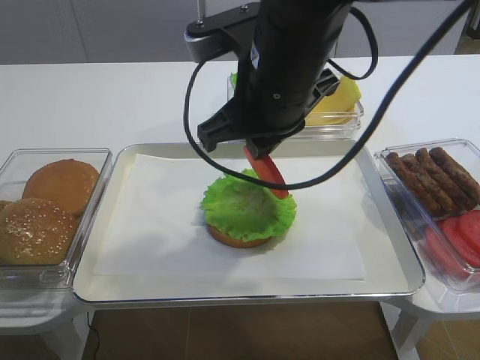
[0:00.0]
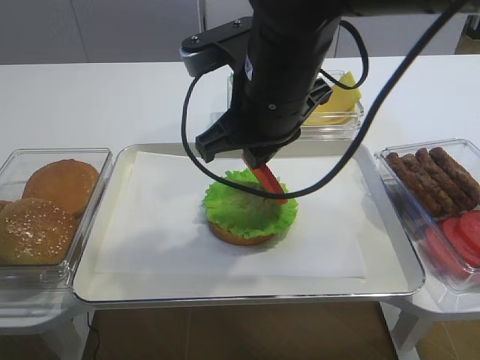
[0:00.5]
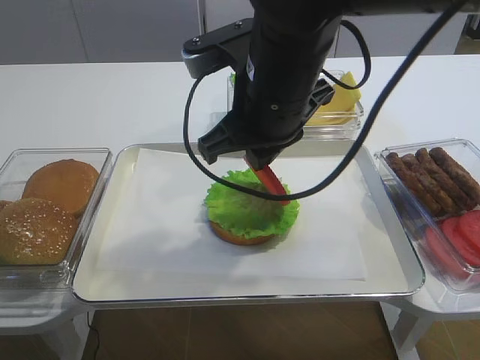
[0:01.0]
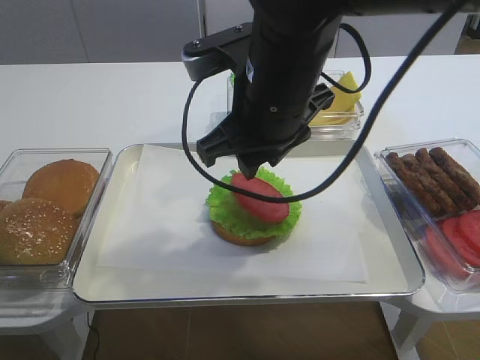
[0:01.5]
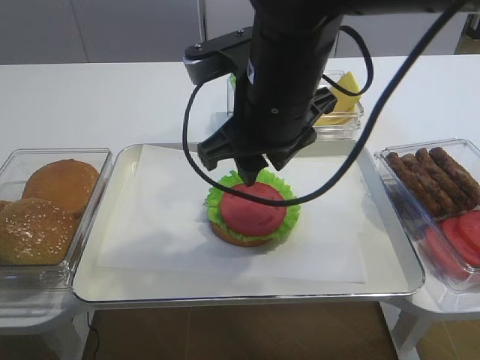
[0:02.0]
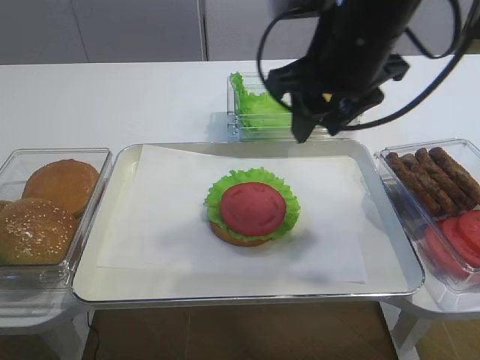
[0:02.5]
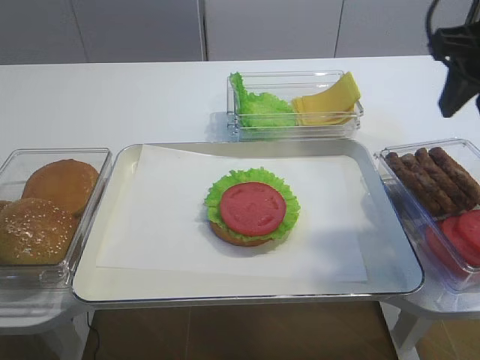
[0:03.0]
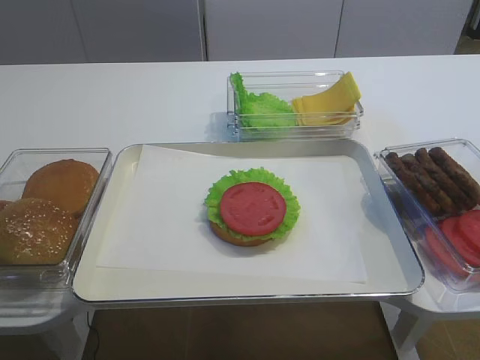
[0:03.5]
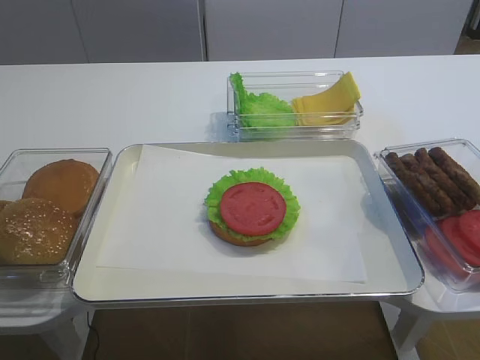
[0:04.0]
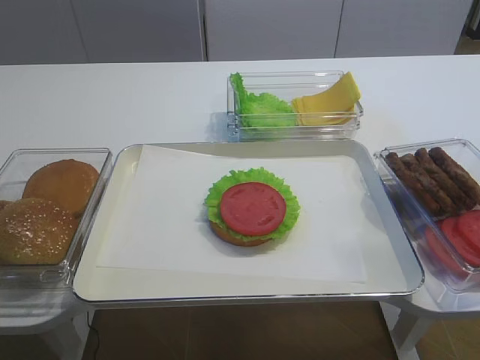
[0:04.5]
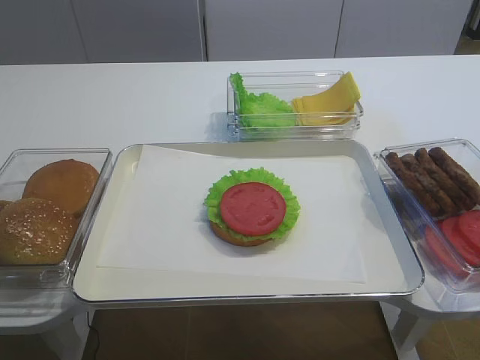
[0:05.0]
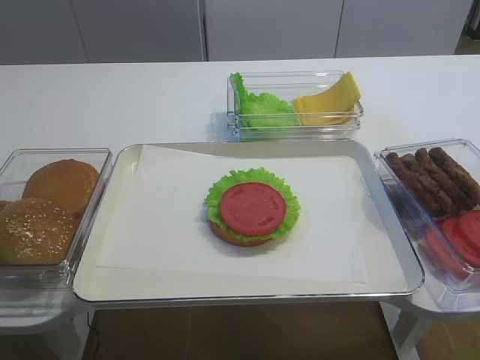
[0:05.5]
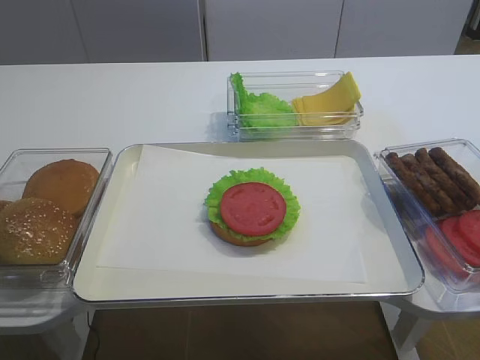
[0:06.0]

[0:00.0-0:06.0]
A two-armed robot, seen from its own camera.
Step, 0:00.0 to 0:02.0: Place the tomato slice on the lettuce leaf with the right gripper.
0:00.0 to 0:02.0: The right gripper opens.
0:02.0 to 0:04.0: The right gripper travels to the right, backward and upward by approximately 30 cm.

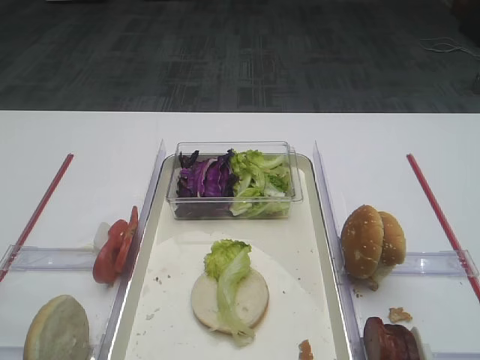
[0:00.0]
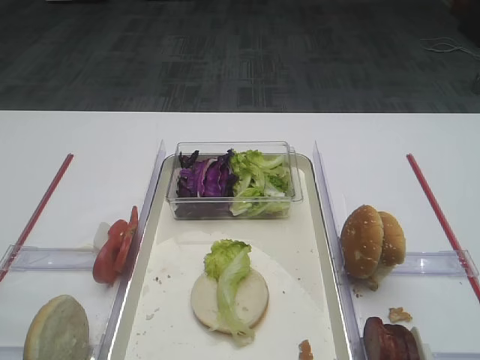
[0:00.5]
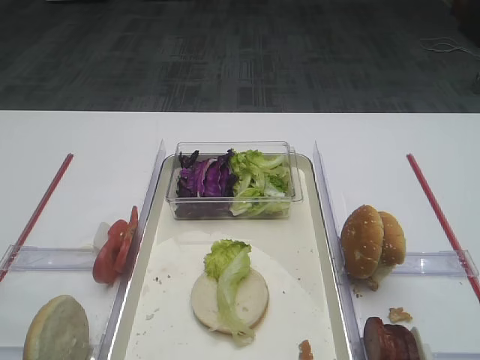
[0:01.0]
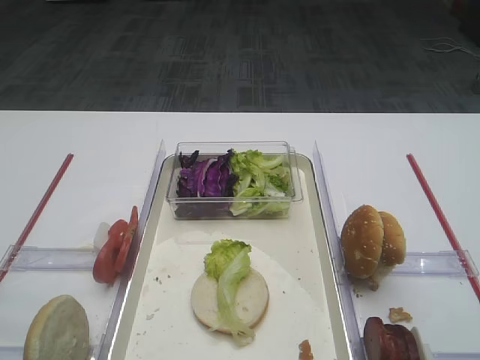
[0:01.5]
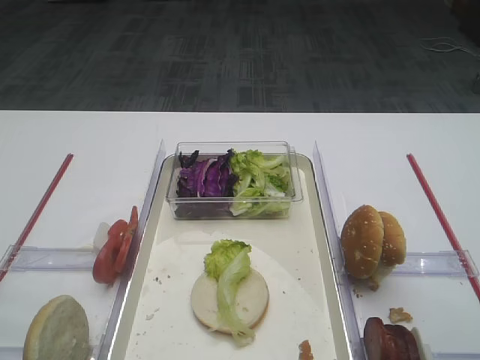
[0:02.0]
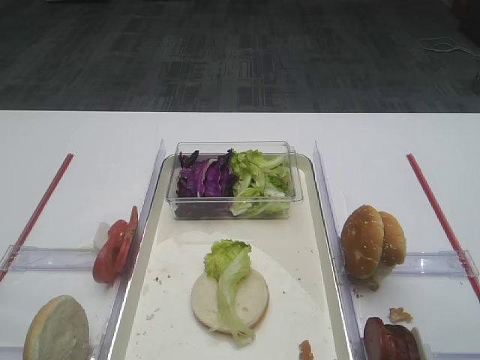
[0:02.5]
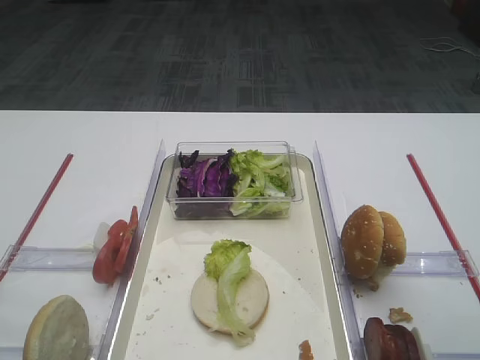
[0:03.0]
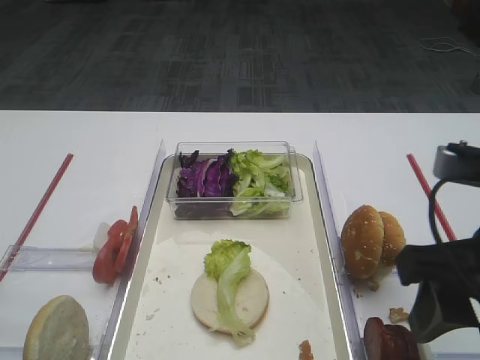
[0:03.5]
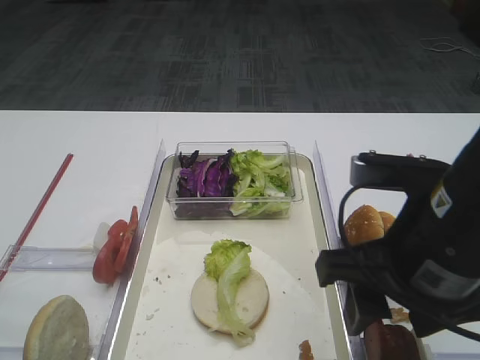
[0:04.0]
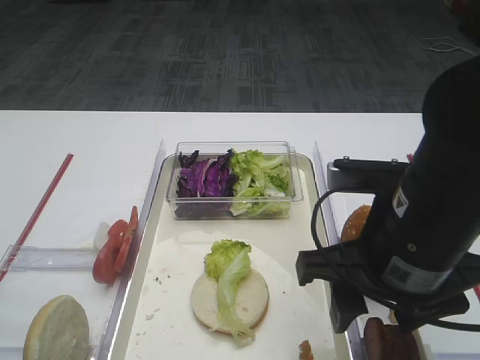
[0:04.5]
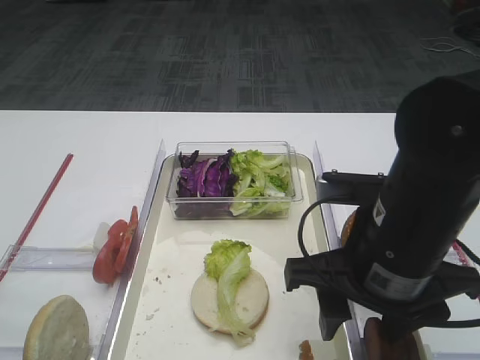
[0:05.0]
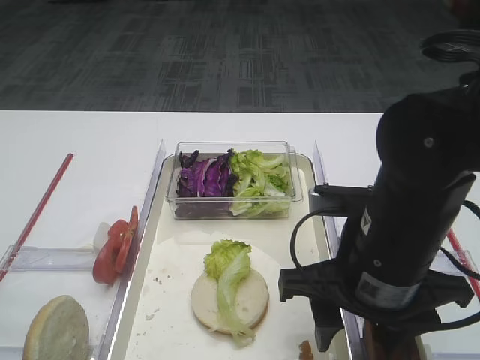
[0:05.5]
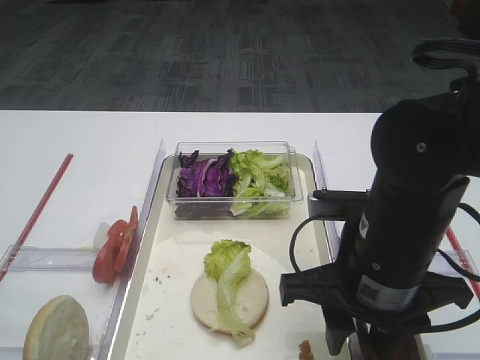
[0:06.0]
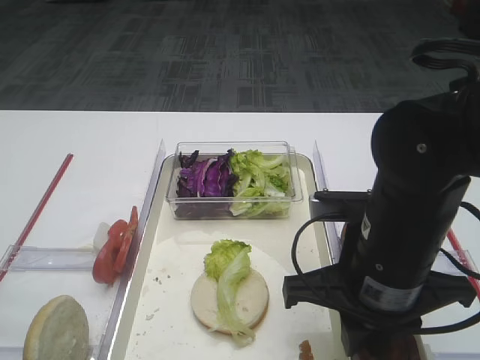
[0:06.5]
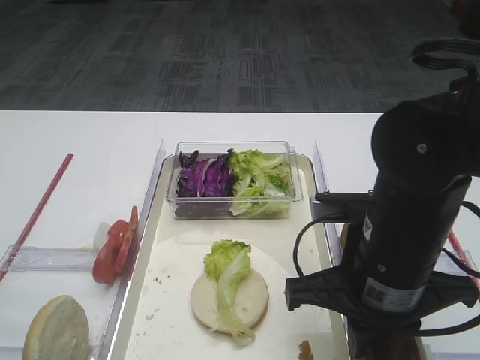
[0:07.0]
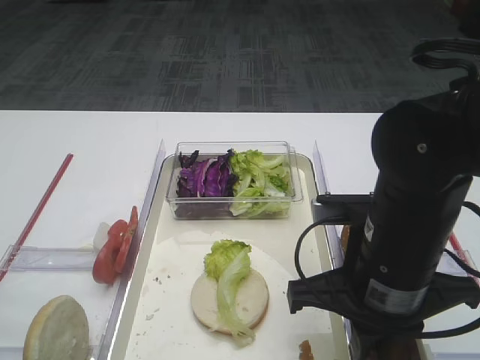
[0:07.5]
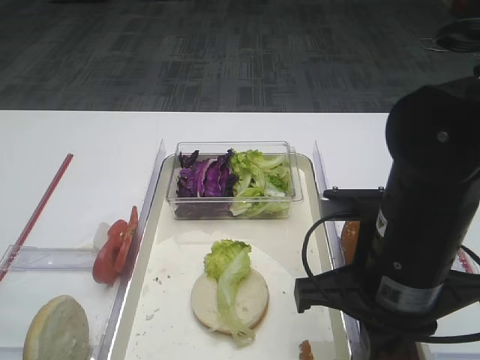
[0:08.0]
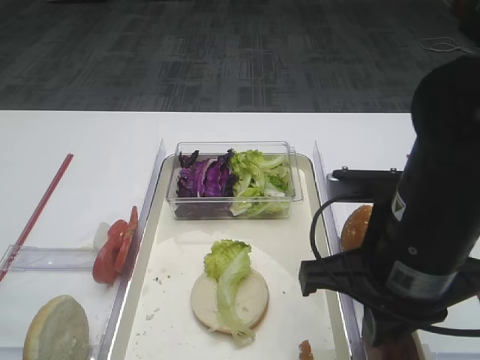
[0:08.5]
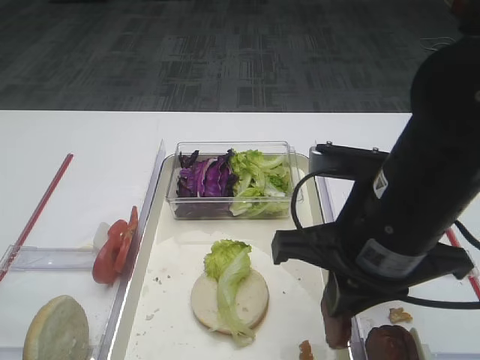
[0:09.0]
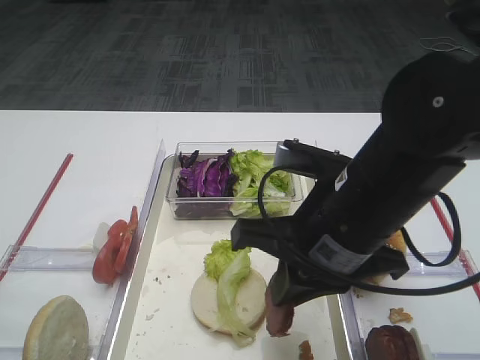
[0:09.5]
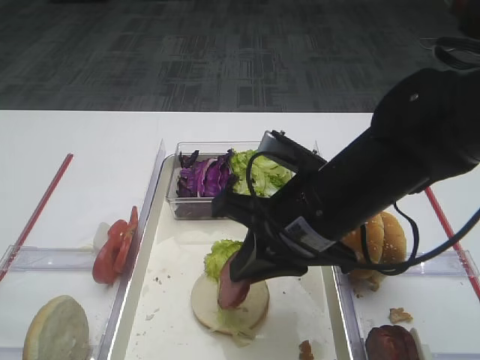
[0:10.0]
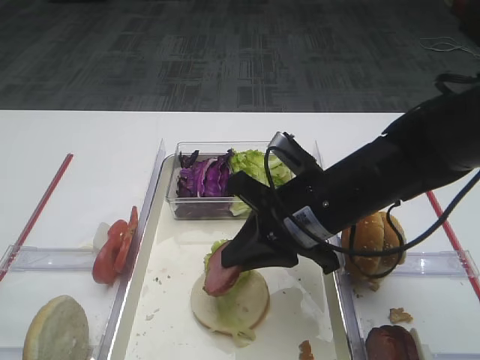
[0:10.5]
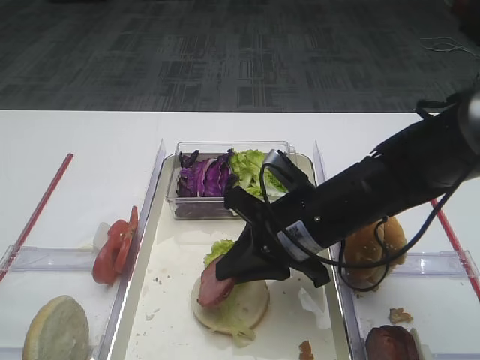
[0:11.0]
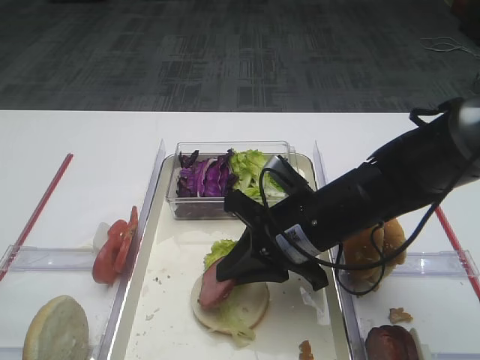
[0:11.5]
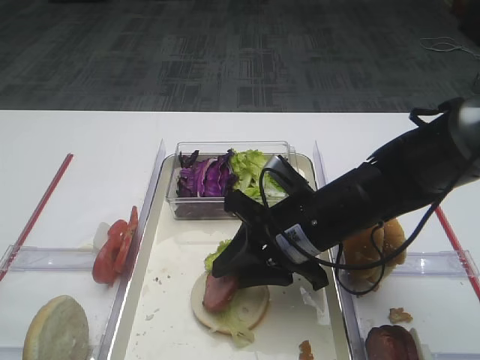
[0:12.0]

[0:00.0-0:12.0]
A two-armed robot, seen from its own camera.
Step, 0:00.0 to 0:08.5: Pick up the cutlet with the right gripper.
0:02.0 to 0:04.0: The right gripper shifts some 15 cm to the left, downward and forward.
0:04.0 to 0:06.0: The right gripper changes place by about 5 cm.
0:06.0 to 0:08.0: The right gripper closes.
0:08.0 to 0:10.0: The right gripper shifts by roughly 5 cm.
0:10.0 to 0:12.0: The right gripper shifts about 5 cm downward, and opens its fingers.

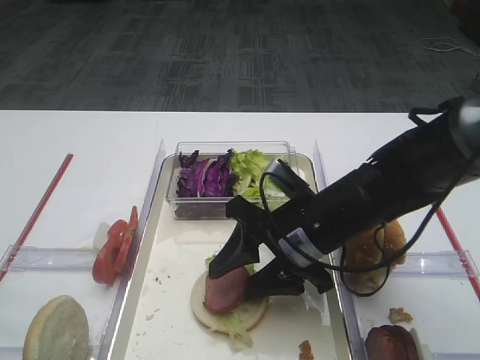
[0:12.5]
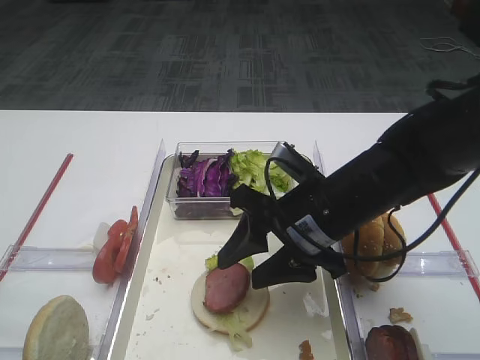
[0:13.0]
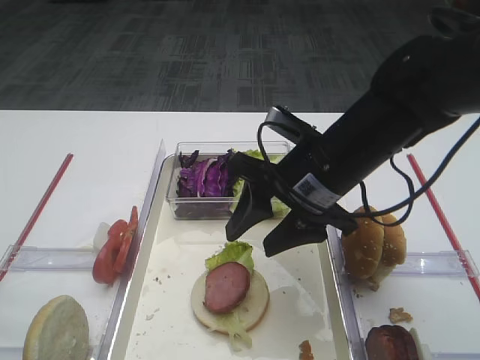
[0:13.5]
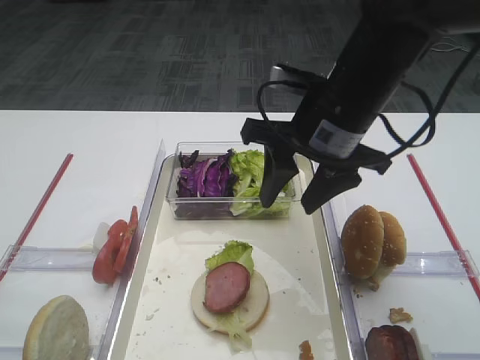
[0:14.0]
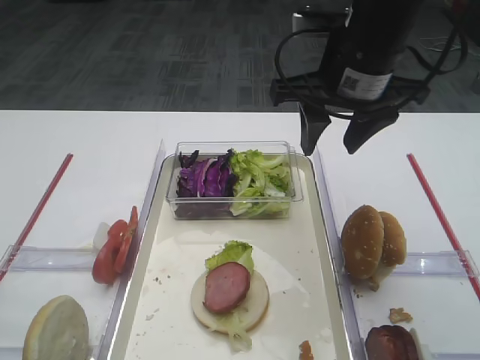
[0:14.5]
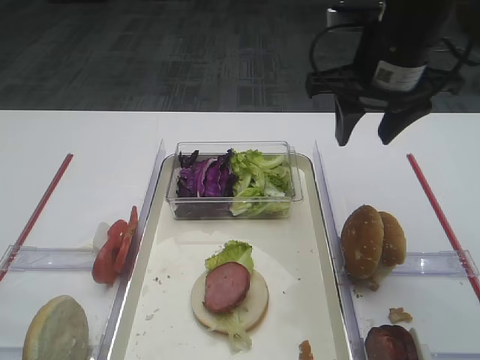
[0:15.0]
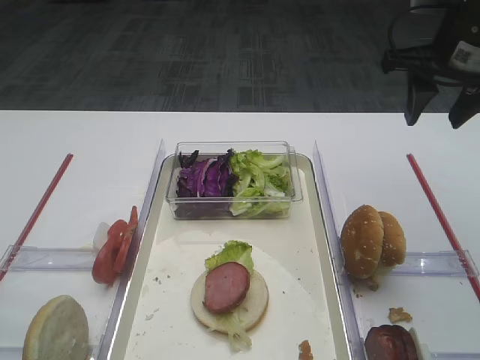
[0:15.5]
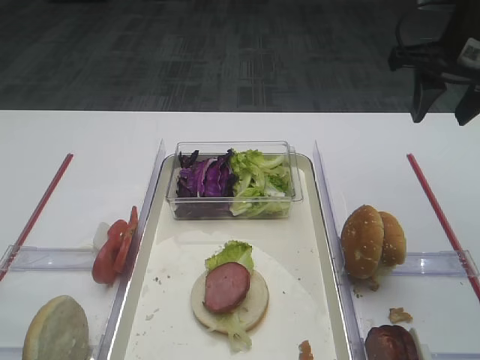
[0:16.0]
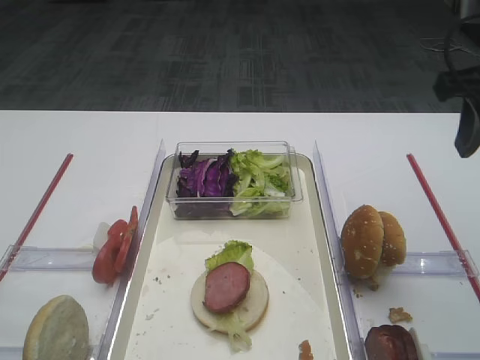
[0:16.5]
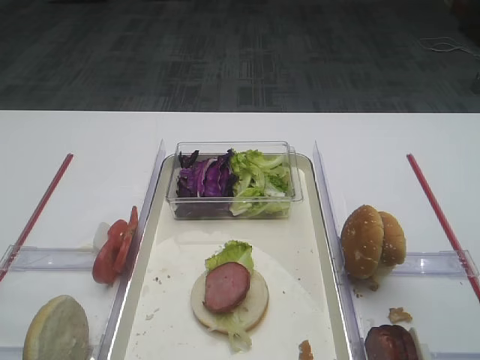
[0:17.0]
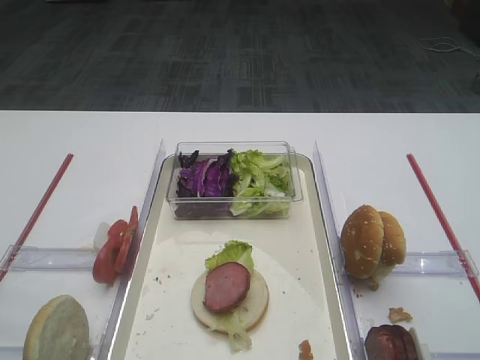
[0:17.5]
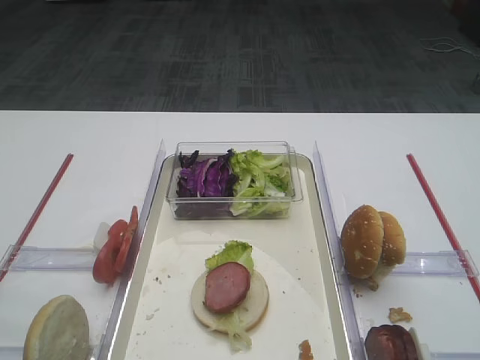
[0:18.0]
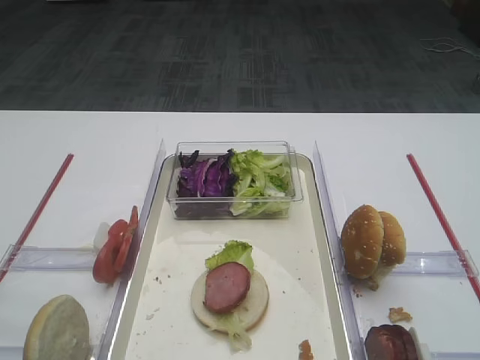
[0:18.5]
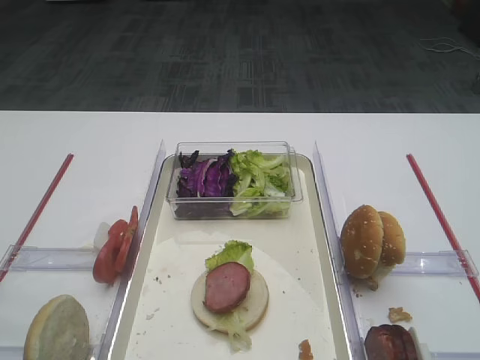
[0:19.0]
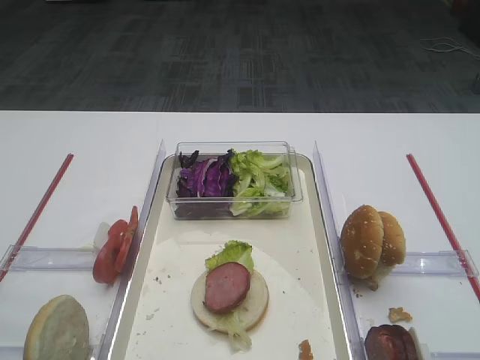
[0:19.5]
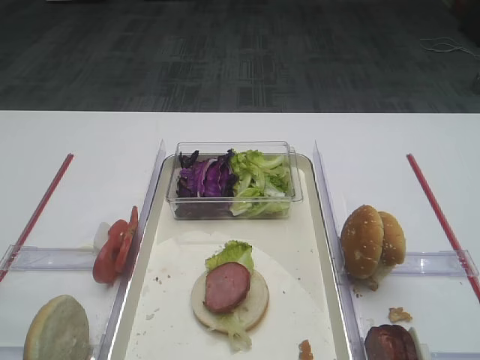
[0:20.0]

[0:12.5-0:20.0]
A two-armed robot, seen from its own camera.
0:12.5 to 0:14.5: The right gripper moves upward, some 15 cm.
0:14.5 to 0:16.5: The right gripper heads to the right, covering some 15 cm.
0:16.5 to 0:18.0: The right gripper travels backward by about 25 cm.
